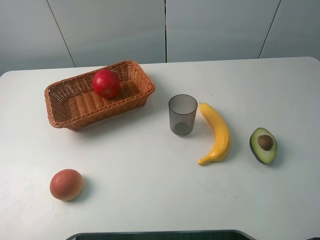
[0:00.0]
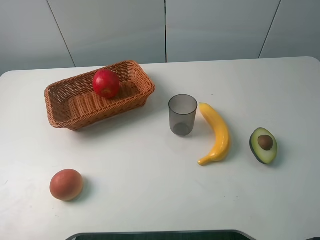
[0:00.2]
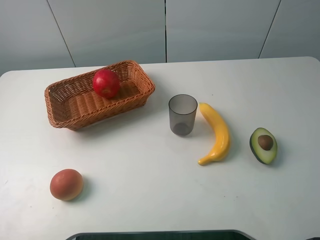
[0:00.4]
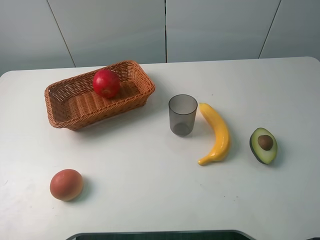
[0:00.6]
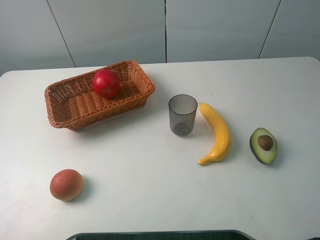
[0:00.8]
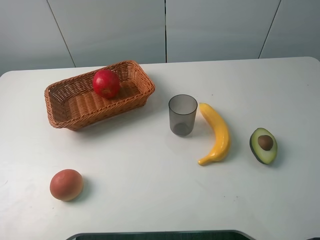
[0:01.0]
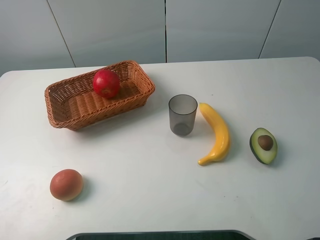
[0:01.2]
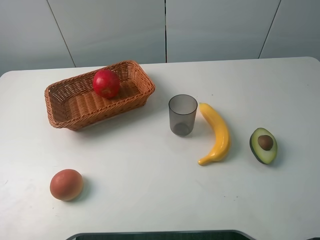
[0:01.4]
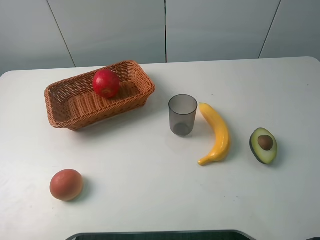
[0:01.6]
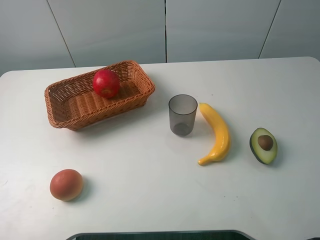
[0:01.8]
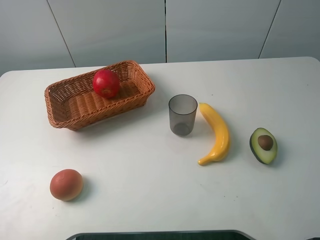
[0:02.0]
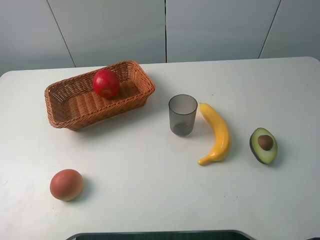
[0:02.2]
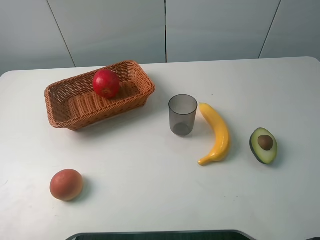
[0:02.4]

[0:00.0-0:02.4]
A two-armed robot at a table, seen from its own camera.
Task of the whole recording: randomly pick up an item from the table and put it in the basket.
0:01.2 to 0:02.4: Neither gripper changes place.
